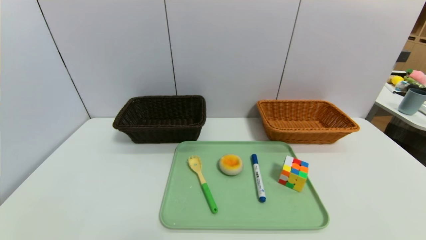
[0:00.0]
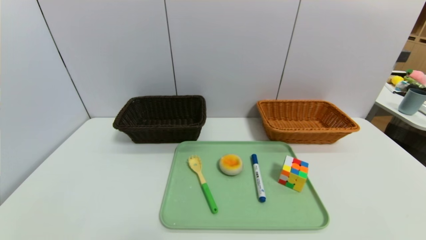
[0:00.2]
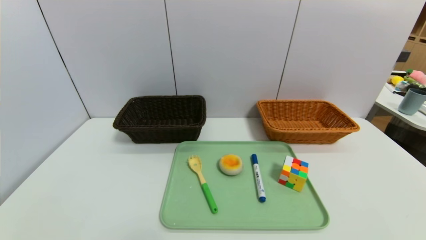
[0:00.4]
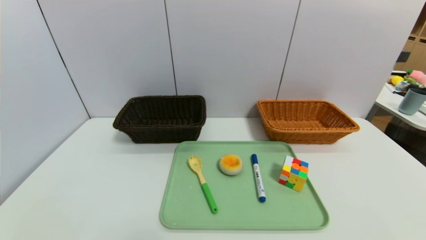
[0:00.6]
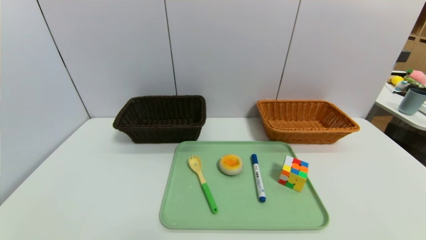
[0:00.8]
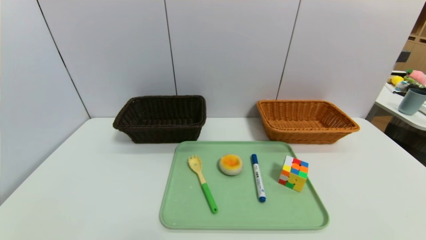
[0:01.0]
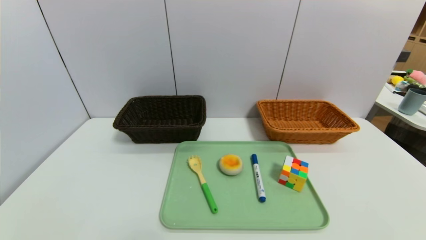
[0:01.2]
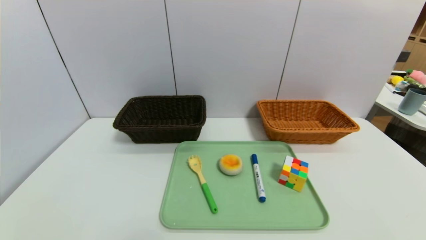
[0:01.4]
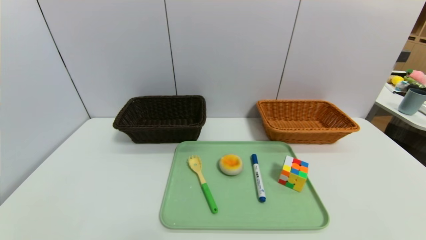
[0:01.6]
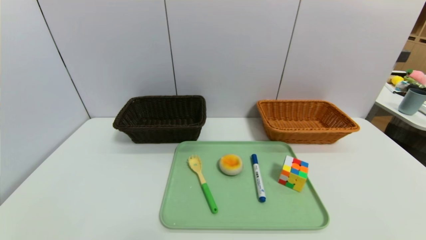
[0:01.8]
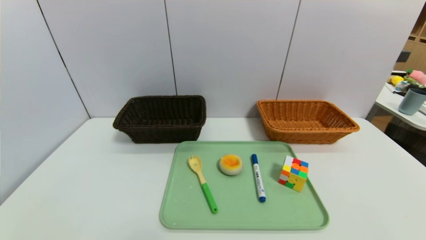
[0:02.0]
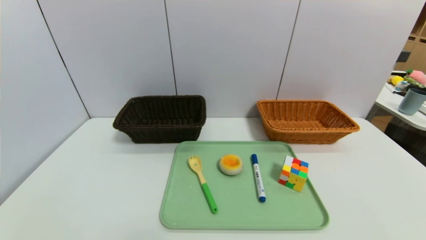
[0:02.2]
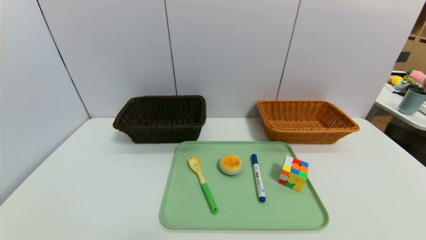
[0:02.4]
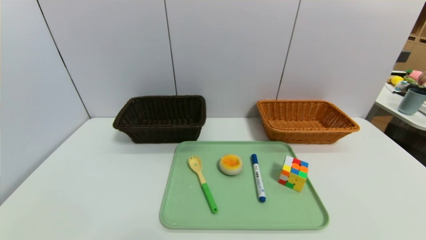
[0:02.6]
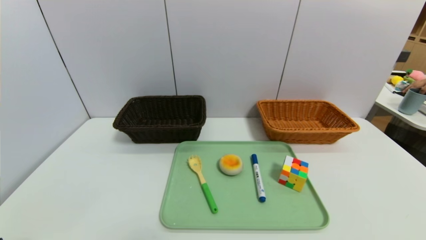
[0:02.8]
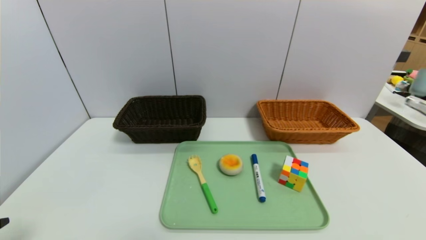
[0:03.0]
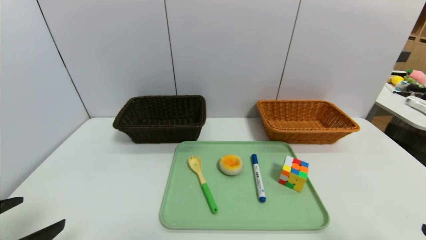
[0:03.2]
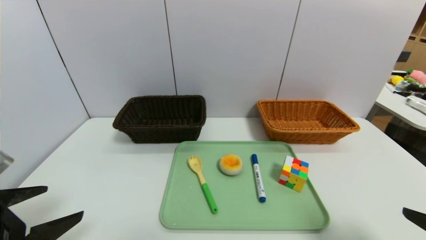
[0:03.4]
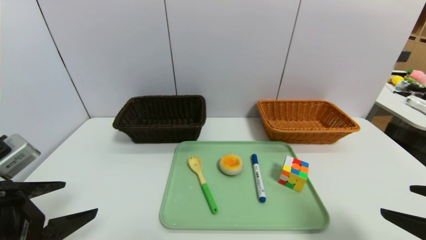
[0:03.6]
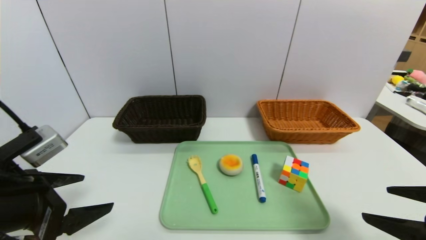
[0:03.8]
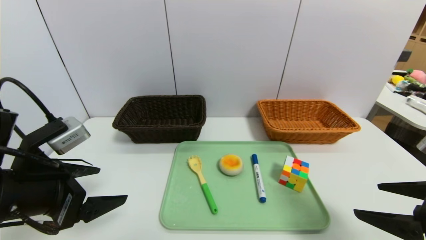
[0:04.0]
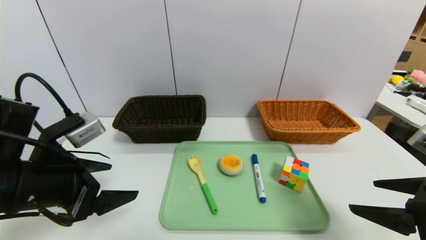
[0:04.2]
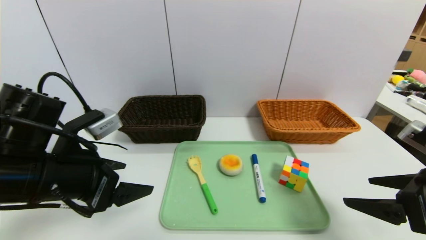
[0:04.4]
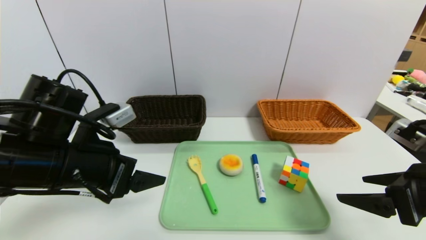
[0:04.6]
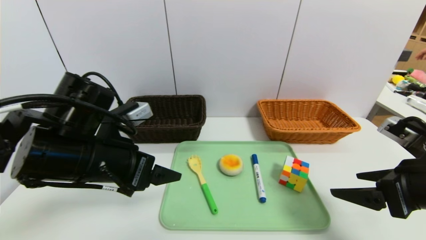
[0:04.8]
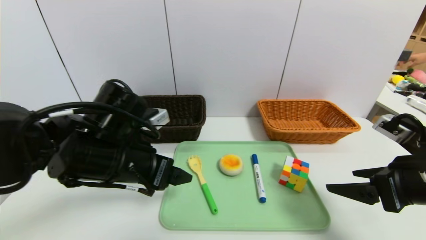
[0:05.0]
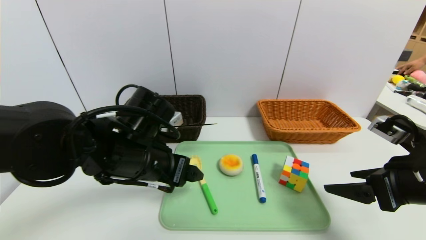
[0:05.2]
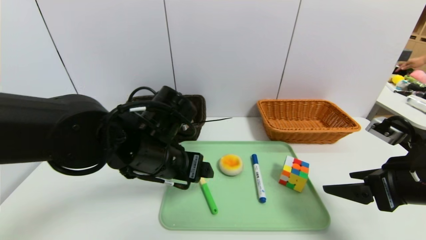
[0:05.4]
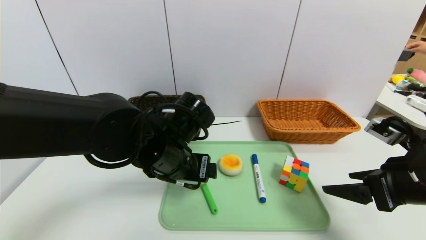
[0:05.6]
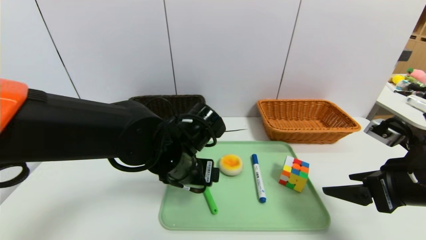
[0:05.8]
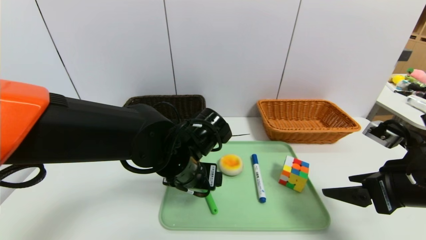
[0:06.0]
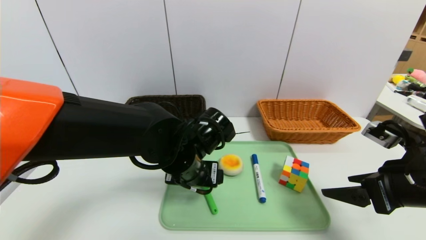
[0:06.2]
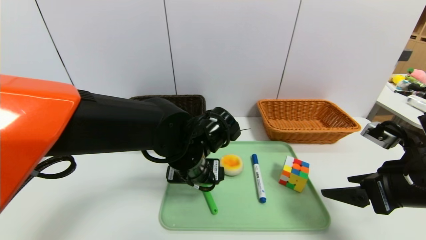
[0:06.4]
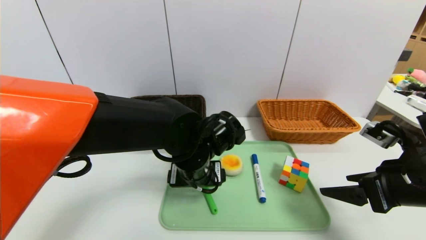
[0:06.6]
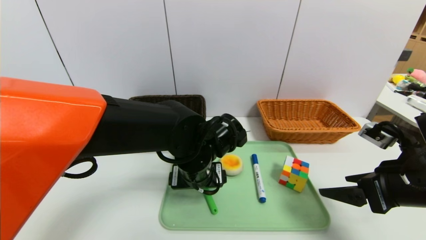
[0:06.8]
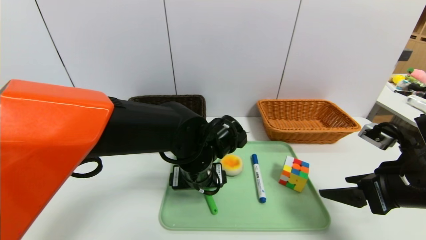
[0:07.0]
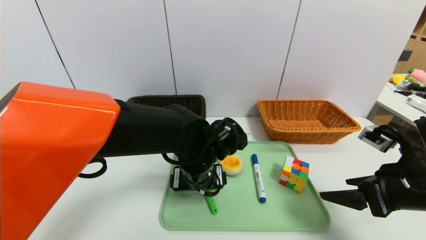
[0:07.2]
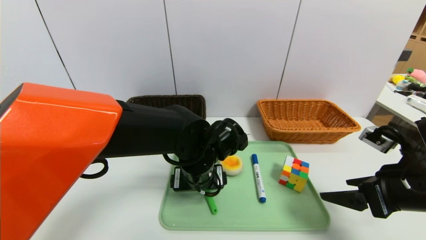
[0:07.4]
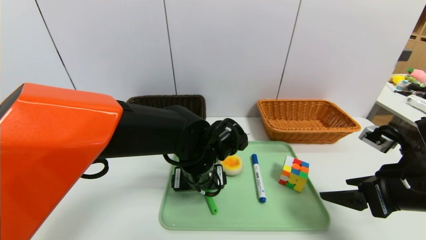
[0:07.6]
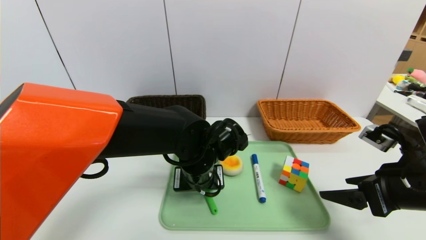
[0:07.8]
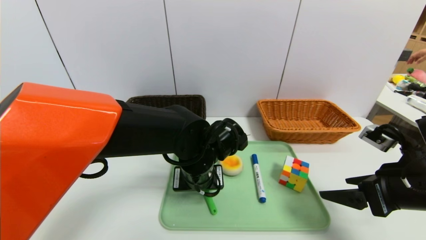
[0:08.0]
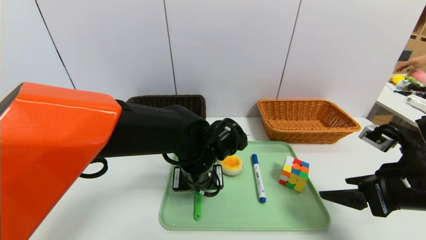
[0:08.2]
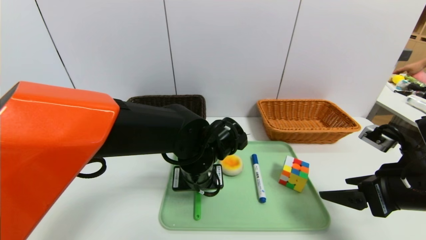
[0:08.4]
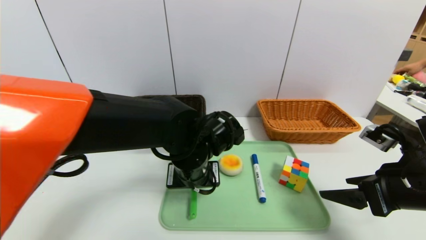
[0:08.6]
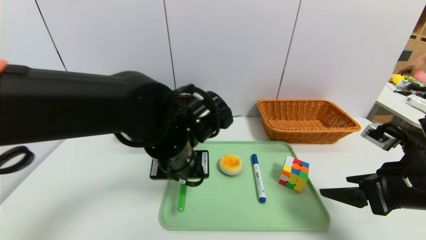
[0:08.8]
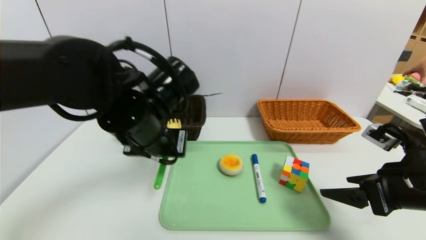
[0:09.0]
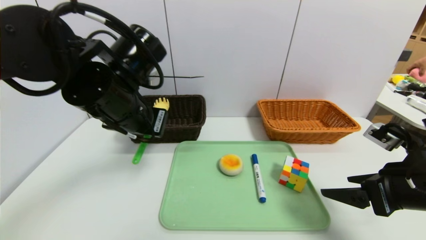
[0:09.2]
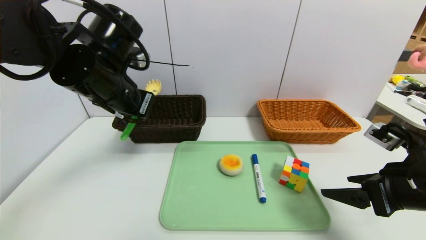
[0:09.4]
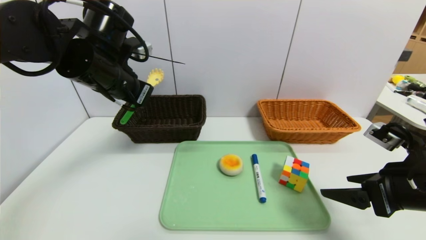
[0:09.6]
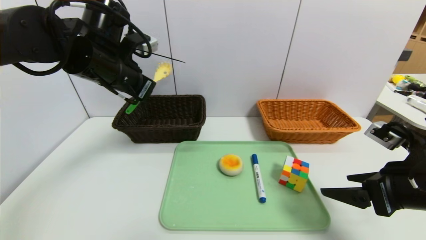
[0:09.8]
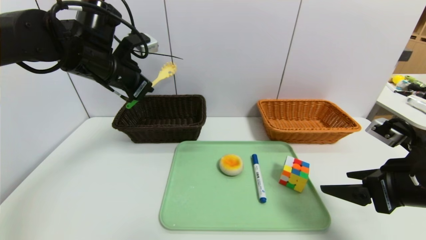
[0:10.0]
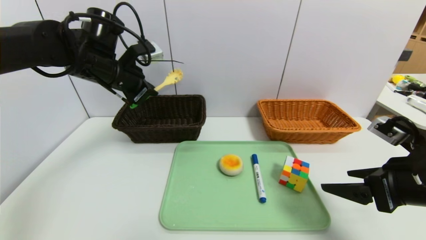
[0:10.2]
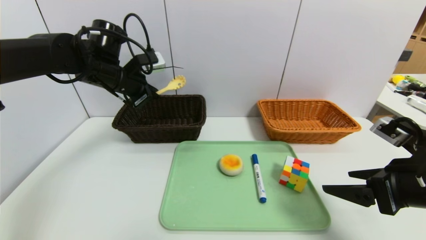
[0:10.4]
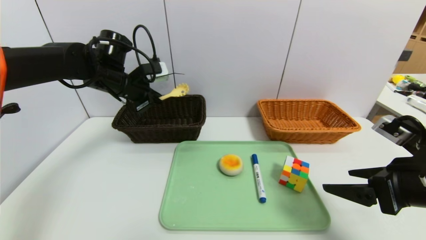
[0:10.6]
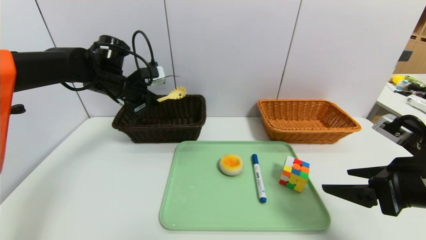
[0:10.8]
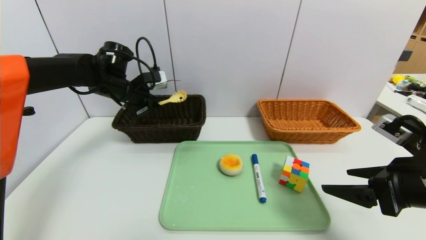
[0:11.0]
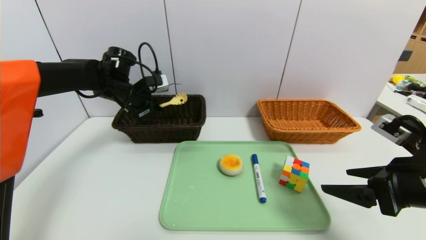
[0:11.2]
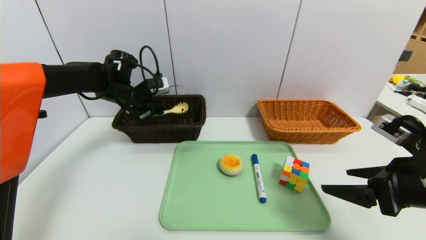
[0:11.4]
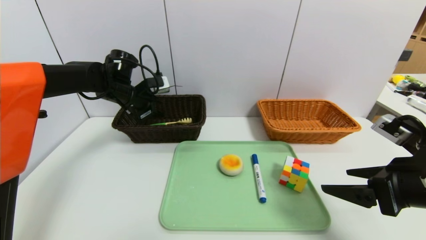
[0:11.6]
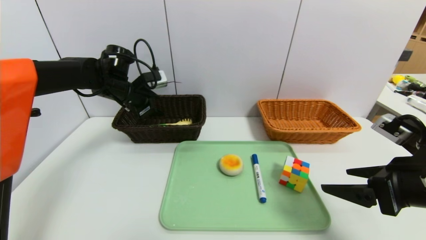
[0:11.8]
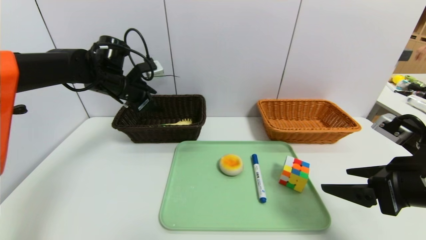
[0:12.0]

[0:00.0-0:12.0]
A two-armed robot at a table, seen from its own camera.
Task of the whole recording: place the food in the right basket with the right gripper, and place the non food items in the left basket with the left gripper.
0:00.0 to 0:01.6: Both grippers stay about where they are.
0:01.6 to 0:03.0: The right gripper heads upward, covering roughly 10 cm.
0:03.0 to 0:04.4: The right gripper travels forward by roughly 15 cm; the left gripper travels forward and to the right by about 15 cm.
0:04.4 to 0:06.0: The left gripper is displaced to the right and forward by roughly 20 cm.
0:06.0 to 0:07.6: There are only small adjustments of the grippers.
0:07.6 to 0:09.0: The left gripper goes approximately 15 cm upward and to the left, and closes its fingers.
0:09.0 to 0:10.4: The left gripper goes some 20 cm forward and to the left.
0:10.4 to 0:12.0: The left gripper opens.

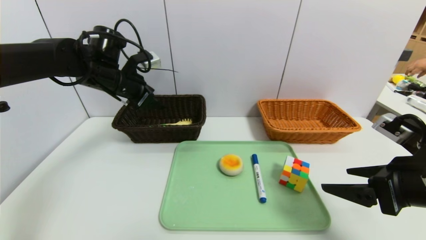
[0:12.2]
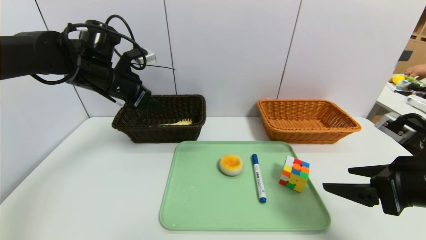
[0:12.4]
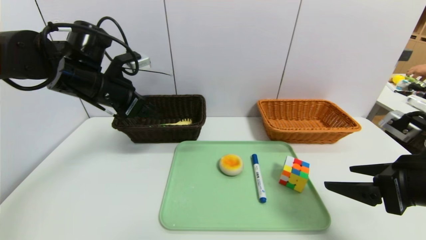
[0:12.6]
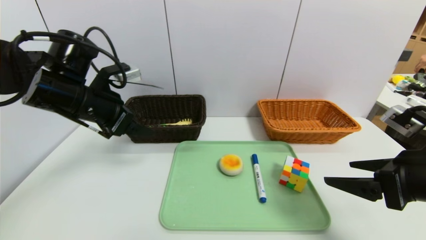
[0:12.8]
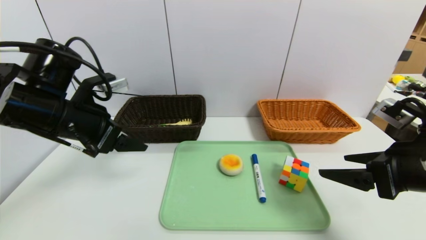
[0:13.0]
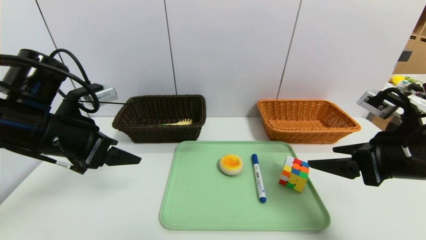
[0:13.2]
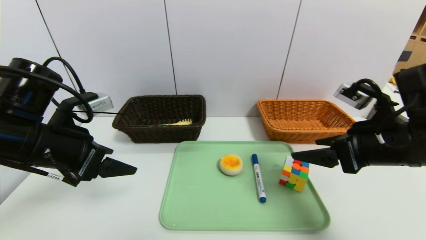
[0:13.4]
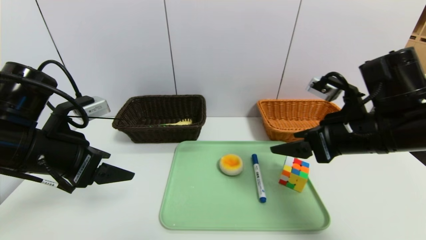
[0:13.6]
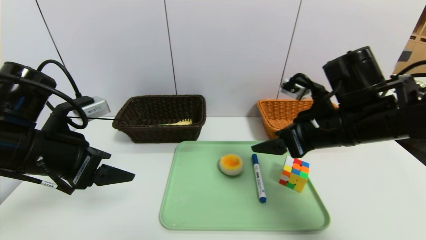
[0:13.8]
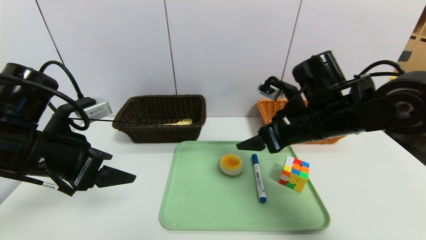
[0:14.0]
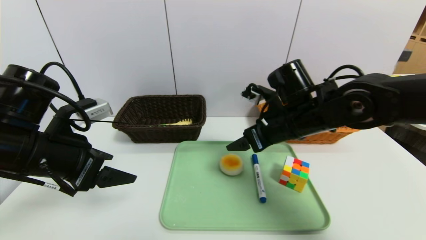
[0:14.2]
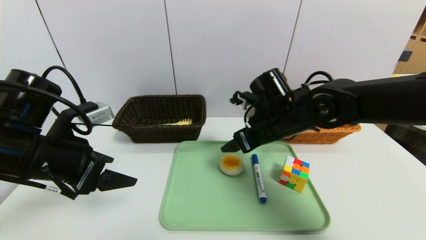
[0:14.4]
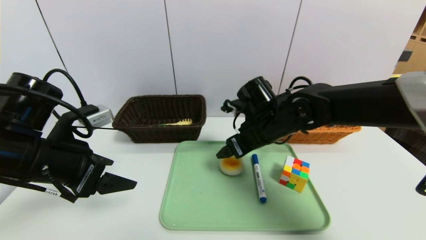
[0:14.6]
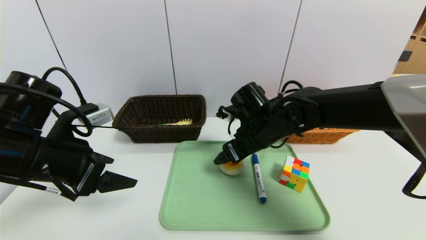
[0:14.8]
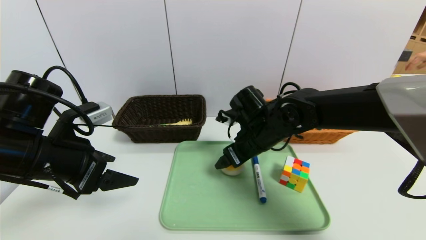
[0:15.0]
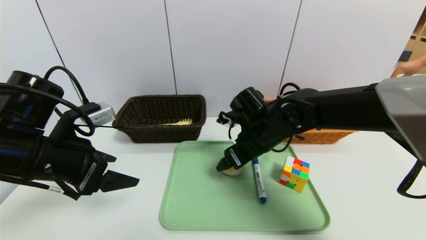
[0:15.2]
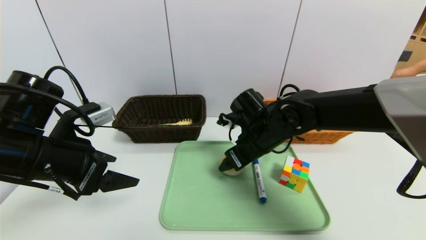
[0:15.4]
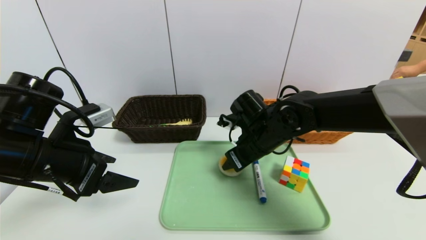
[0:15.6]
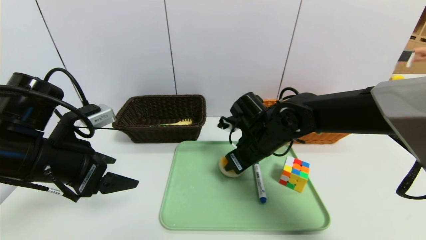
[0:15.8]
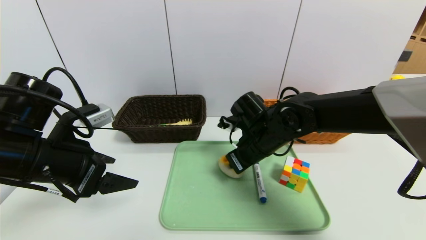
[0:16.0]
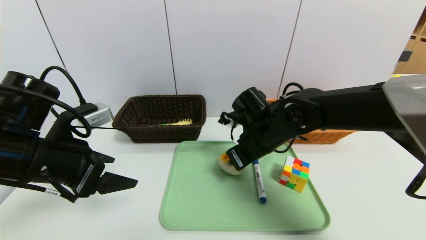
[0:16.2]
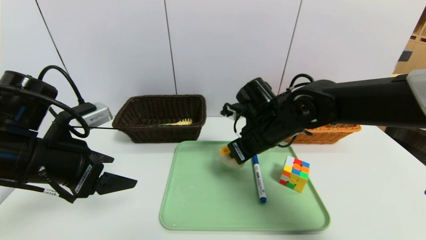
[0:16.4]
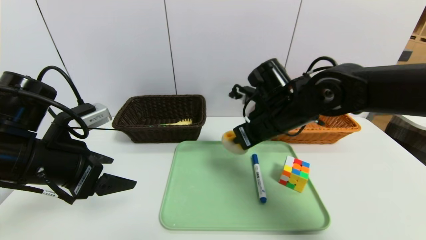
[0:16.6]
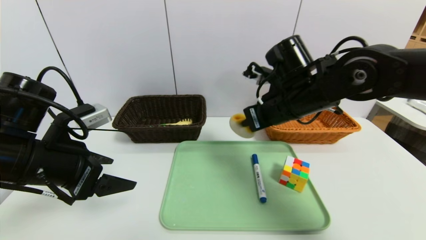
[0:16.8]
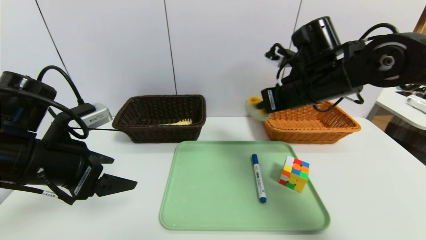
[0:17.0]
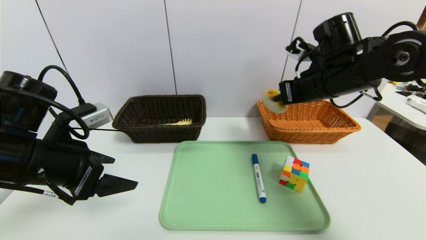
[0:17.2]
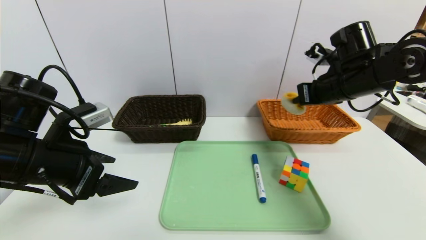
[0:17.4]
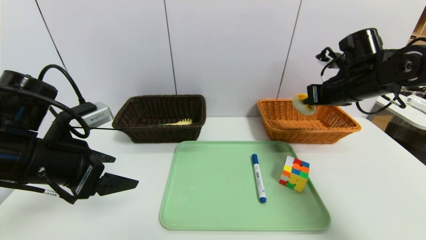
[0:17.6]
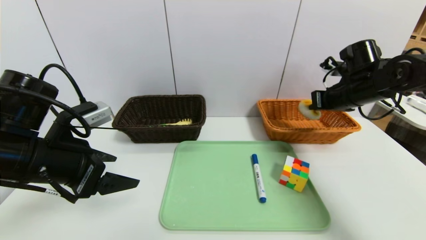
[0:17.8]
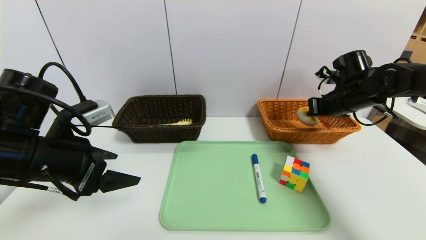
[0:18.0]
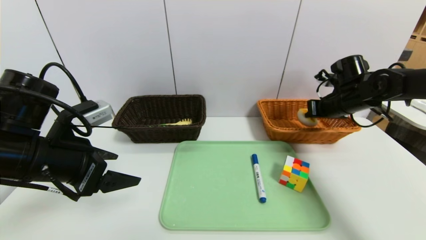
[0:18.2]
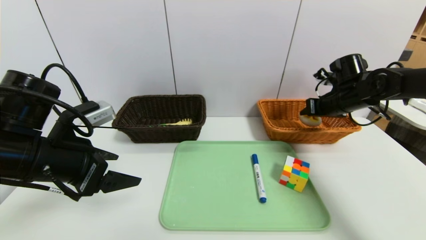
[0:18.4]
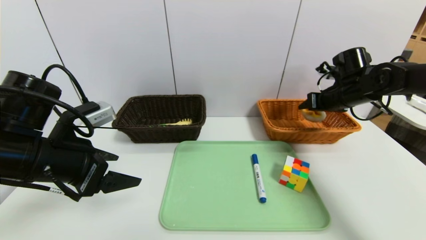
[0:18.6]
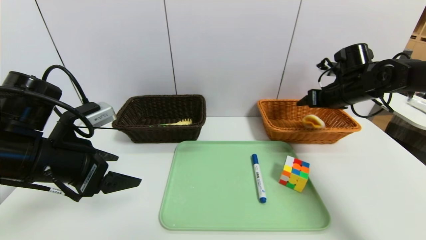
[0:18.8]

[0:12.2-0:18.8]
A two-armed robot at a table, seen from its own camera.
Task of the whole recording: place the food in the right basket with the right gripper, and place the non food items in the left basket with the left gripper.
0:12.2 to 0:13.8: The right gripper heads to the left and forward, covering about 15 cm; the left gripper goes some 20 cm backward.
0:13.8 to 0:15.4: The right gripper travels to the left, downward and forward by about 15 cm.
0:15.4 to 0:17.2: The right gripper goes roughly 15 cm to the right and upward, and closes.
0:17.2 to 0:18.8: The right gripper is displaced to the right, forward and downward by approximately 15 cm, and opens up.
